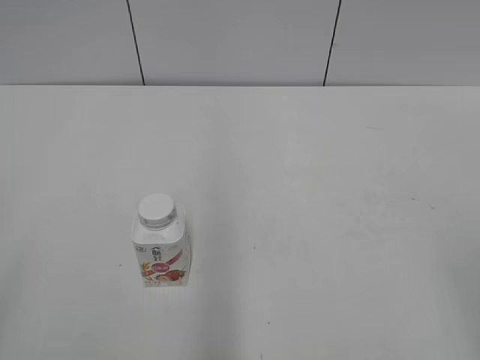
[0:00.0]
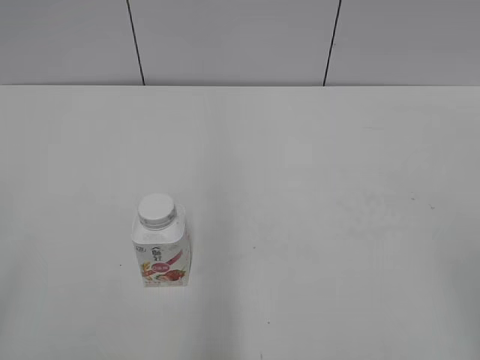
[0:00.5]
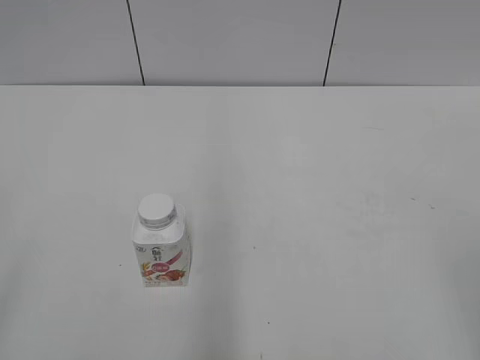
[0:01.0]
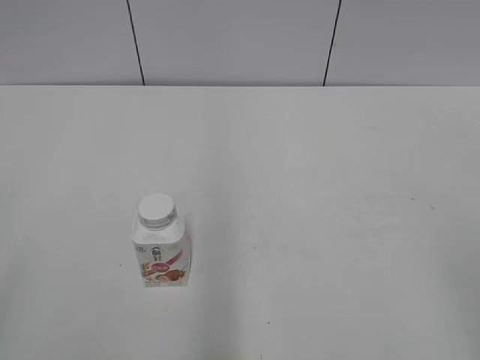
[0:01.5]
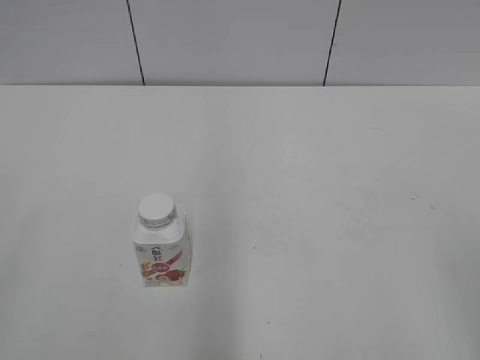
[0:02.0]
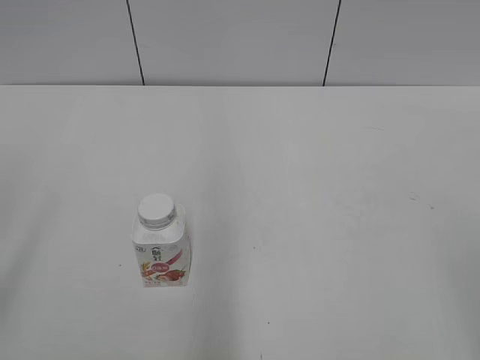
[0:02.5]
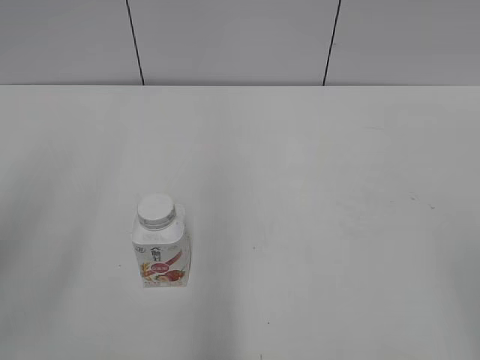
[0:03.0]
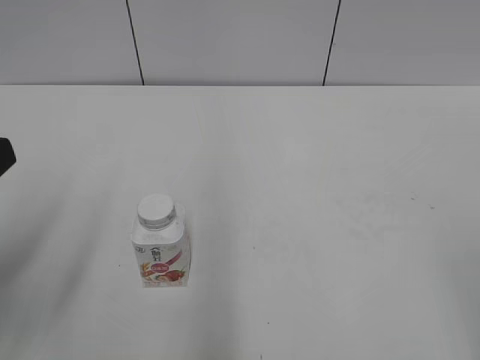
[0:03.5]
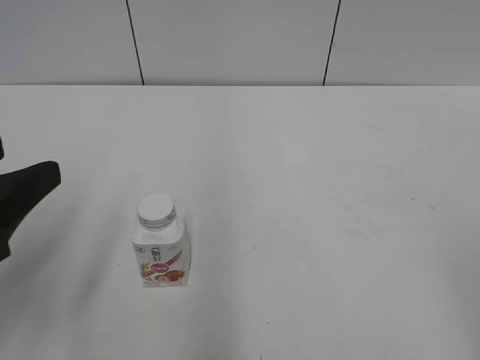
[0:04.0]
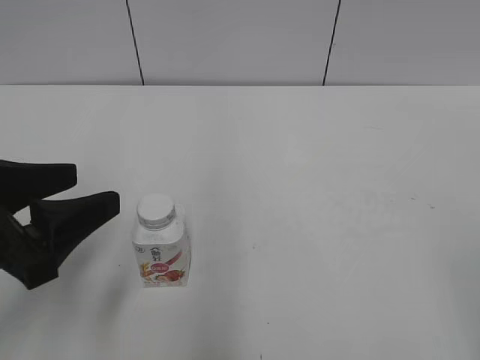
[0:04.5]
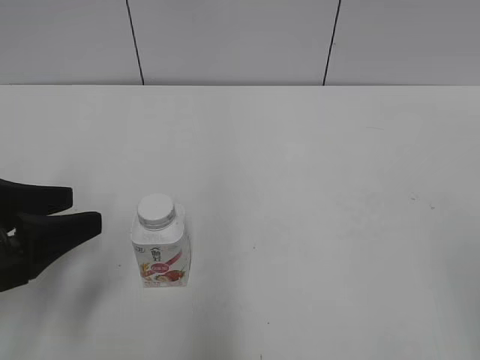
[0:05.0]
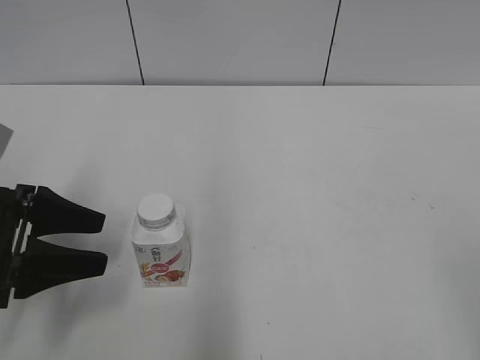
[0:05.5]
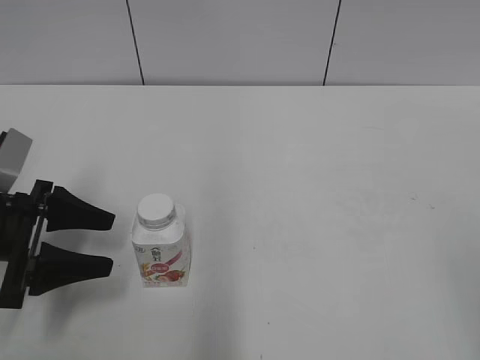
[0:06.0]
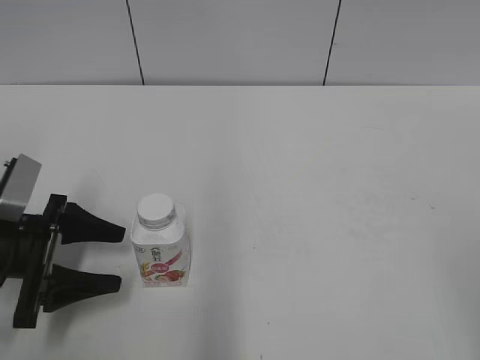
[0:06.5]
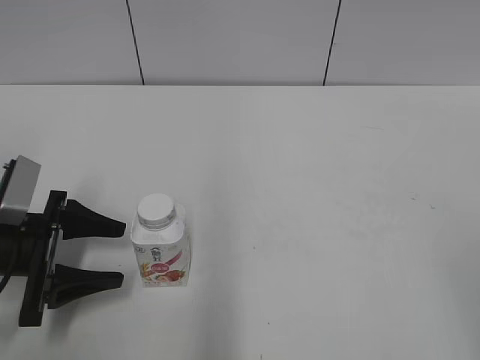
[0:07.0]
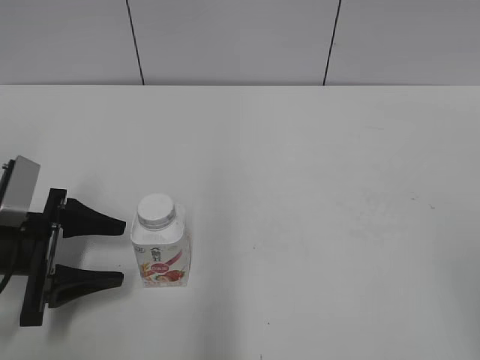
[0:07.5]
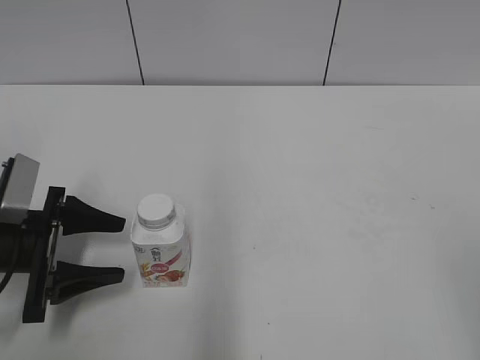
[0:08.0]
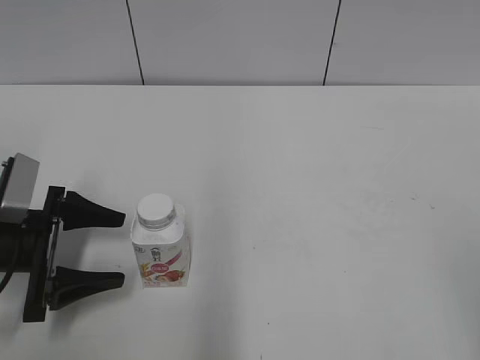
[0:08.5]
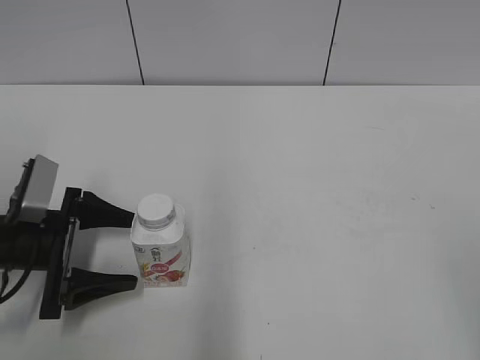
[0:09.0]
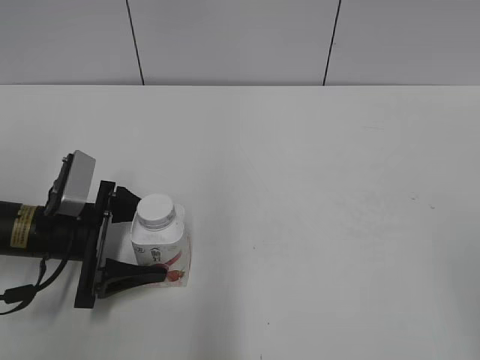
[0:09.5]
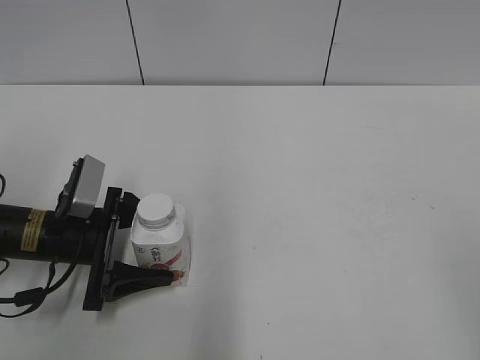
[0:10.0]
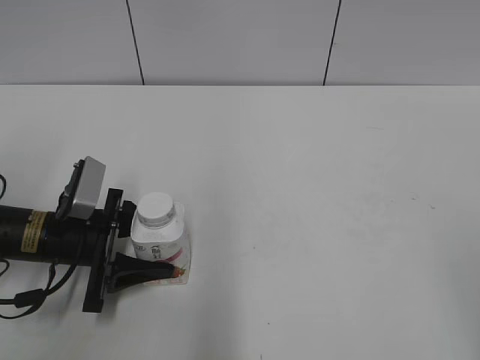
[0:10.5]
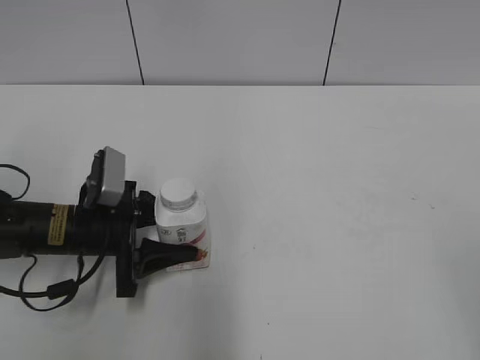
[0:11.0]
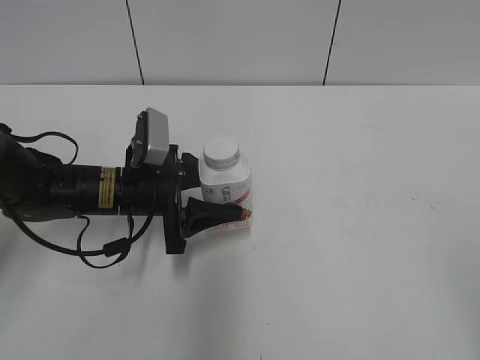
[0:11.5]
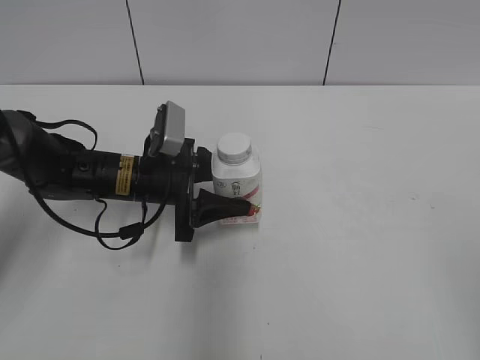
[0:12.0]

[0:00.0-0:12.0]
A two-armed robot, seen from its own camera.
Step, 0:00.0 to 0:10.0: Grab the Yili Changqing with the left hand.
0:02.0 to 0:04.0: The left gripper goes about 20 cm forward, downward and to the right.
0:04.0 to 0:06.0: The left gripper is displaced downward and forward by roughly 15 cm.
0:06.0 to 0:08.0: The grippers make only small movements.
0:08.0 to 0:10.0: The left gripper ends up approximately 5 cm from where it was, and opens up.
0:10.0 to 0:12.0: The left gripper moves to the right and forward, approximately 10 cm, and closes.

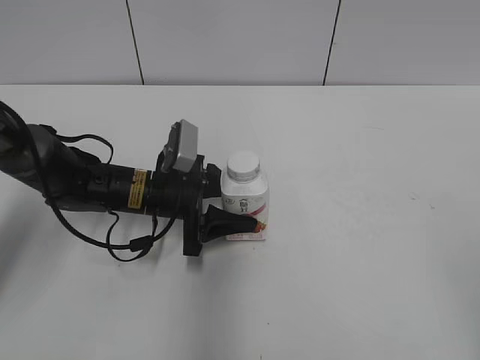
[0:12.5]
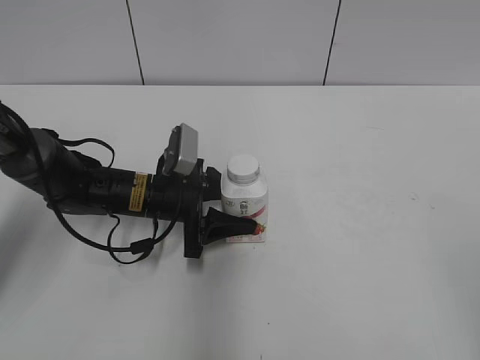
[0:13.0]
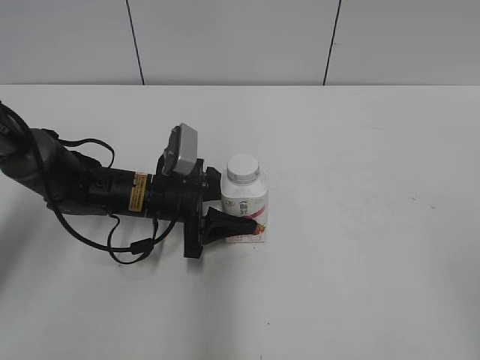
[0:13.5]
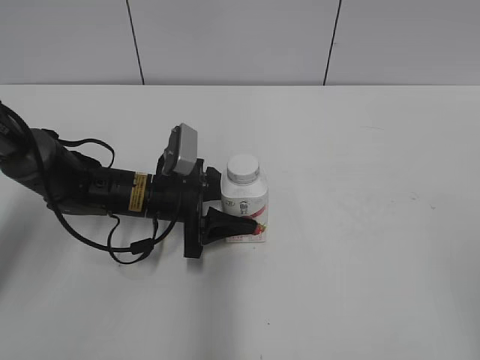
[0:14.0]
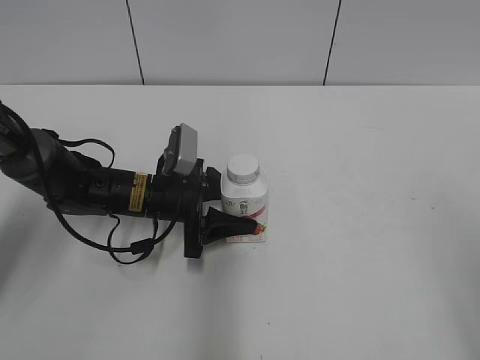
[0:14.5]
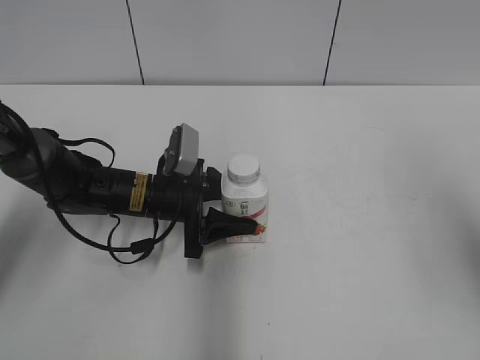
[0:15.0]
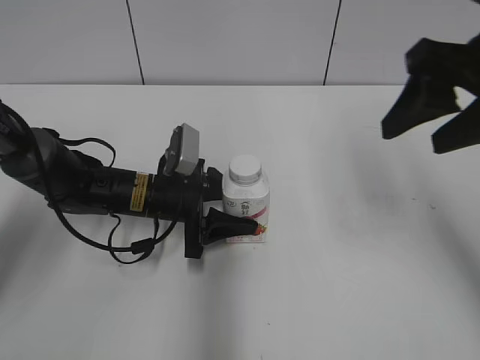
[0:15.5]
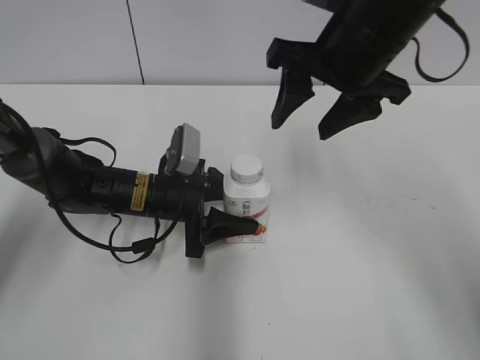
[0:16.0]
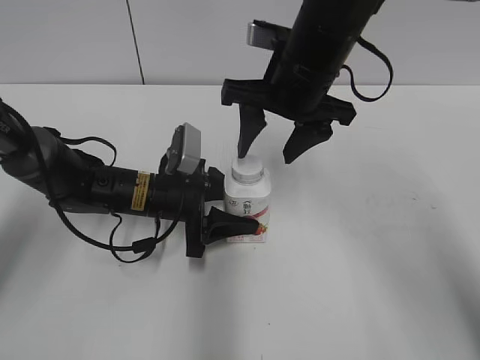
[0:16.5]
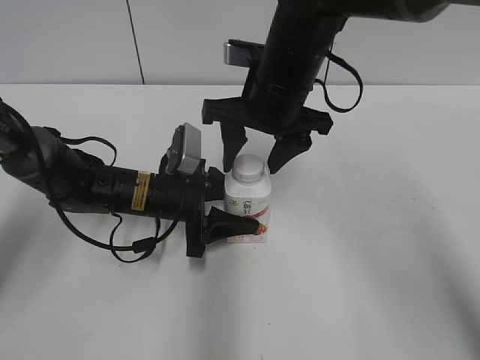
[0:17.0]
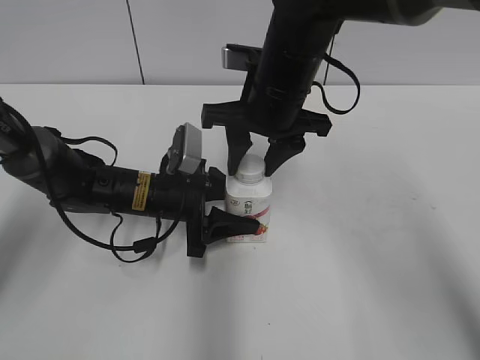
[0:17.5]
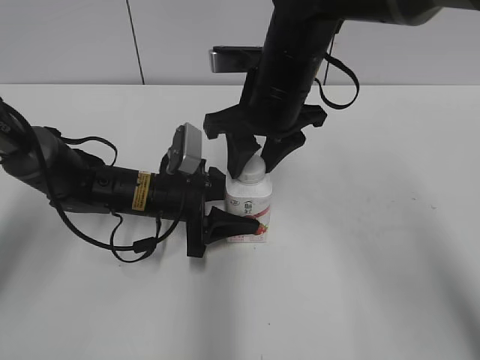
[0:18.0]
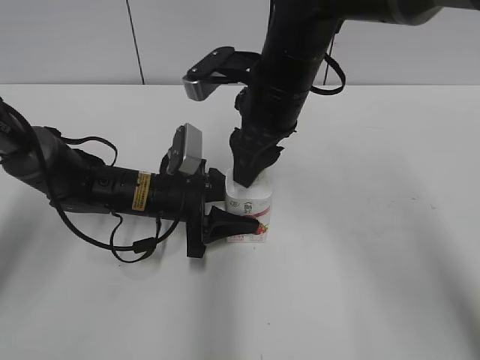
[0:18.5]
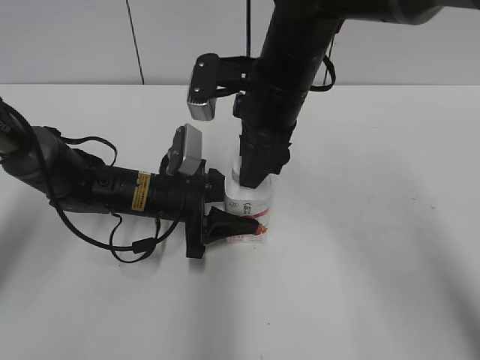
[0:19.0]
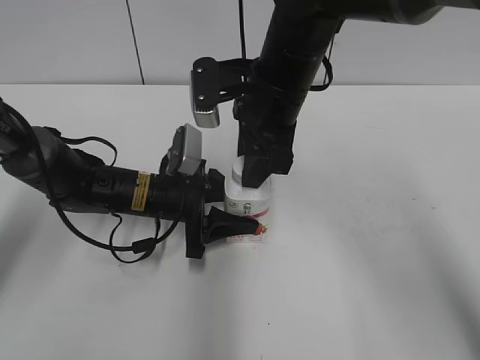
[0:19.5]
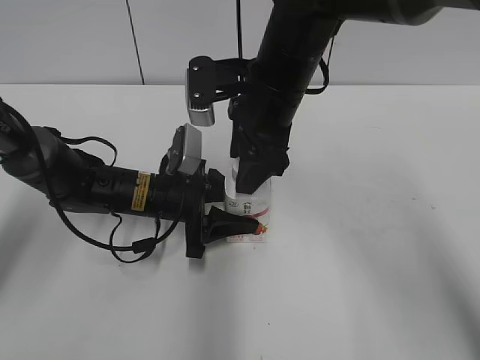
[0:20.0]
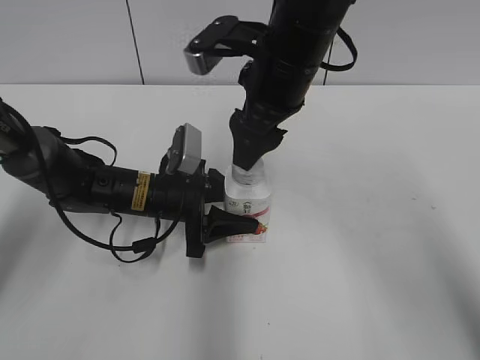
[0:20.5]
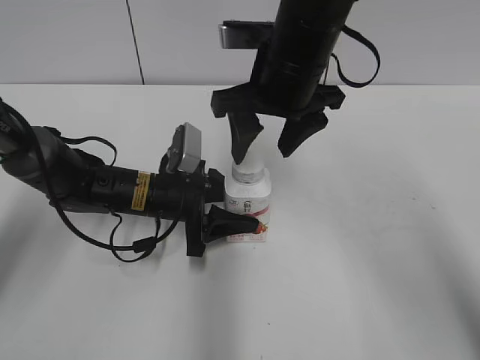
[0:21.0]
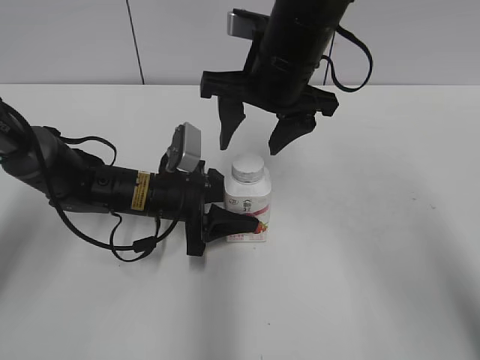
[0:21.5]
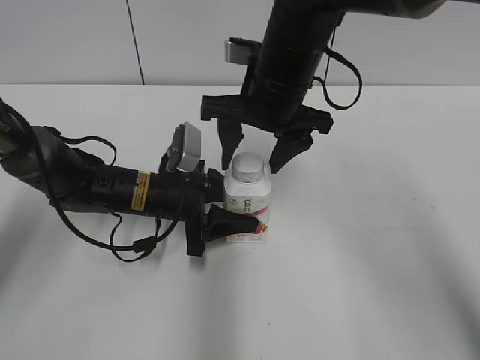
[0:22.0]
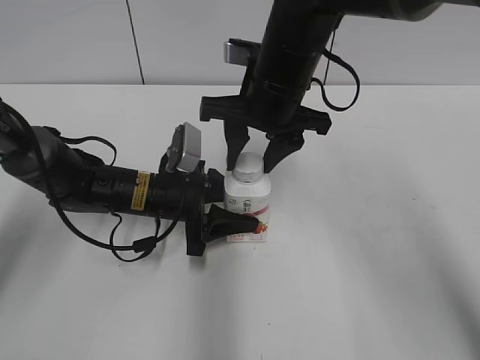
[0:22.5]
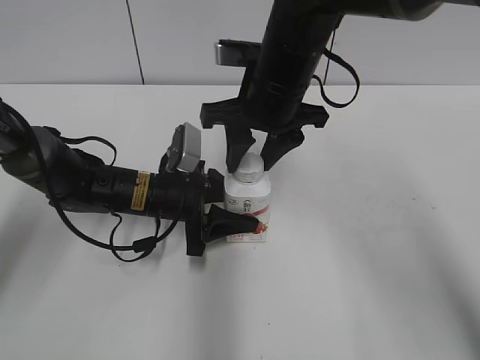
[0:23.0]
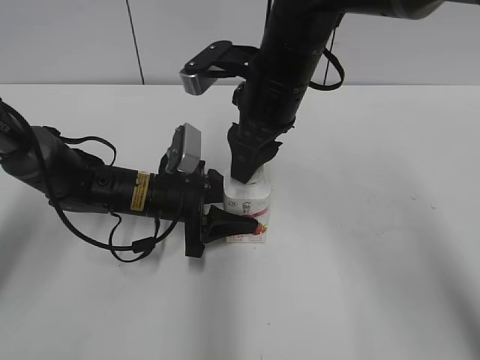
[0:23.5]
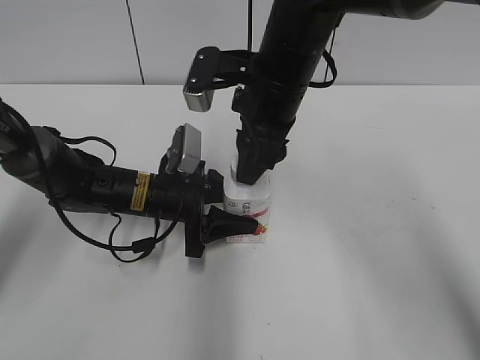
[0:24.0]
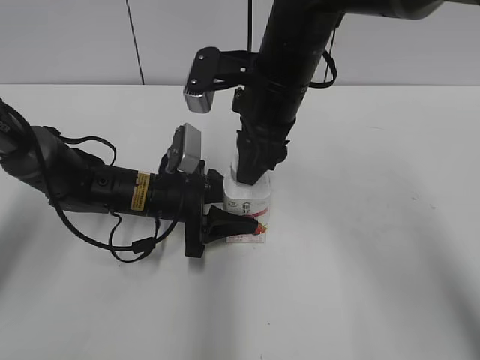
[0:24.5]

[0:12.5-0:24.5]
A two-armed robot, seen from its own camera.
0:12.5 to 0:14.5: The right gripper goes approximately 5 cm forward.
0:14.5 to 0:16.5: The right gripper is displaced forward and to the left by about 35 cm.
0:16.5 to 0:18.5: The right gripper closes its fingers.
0:18.5 to 0:20.5: The right gripper opens its fingers.
0:20.5 to 0:22.5: The right gripper closes up.

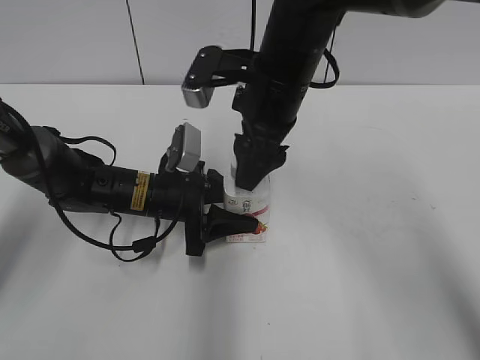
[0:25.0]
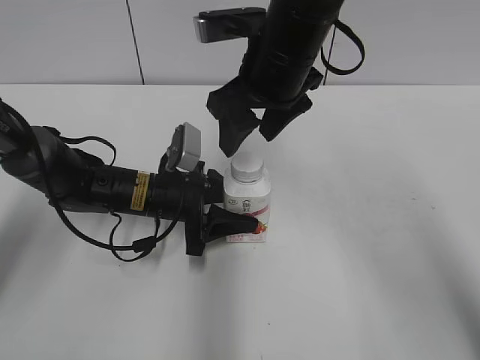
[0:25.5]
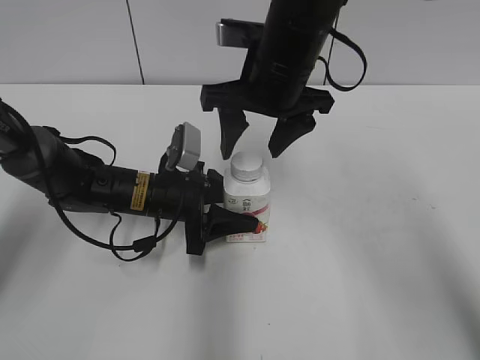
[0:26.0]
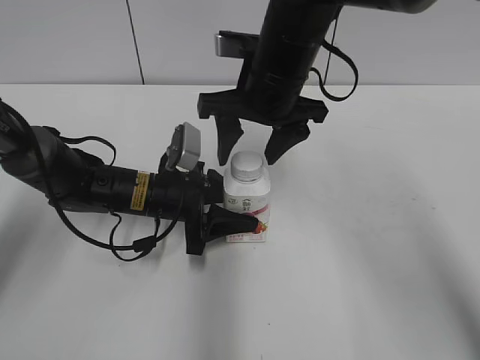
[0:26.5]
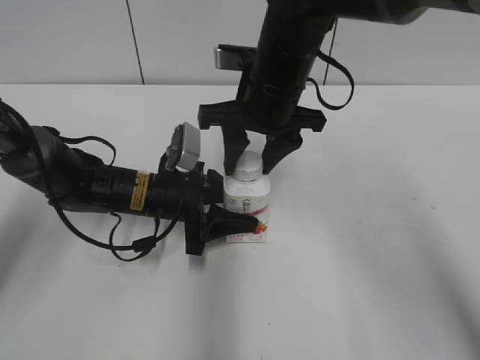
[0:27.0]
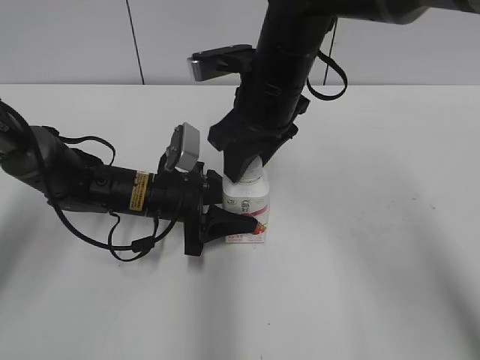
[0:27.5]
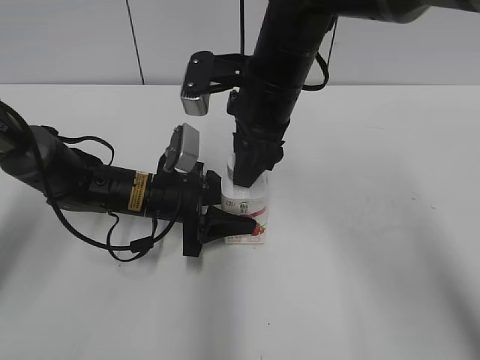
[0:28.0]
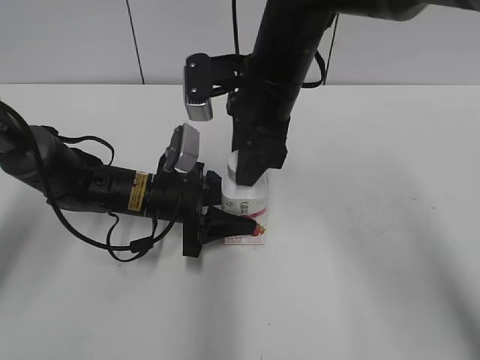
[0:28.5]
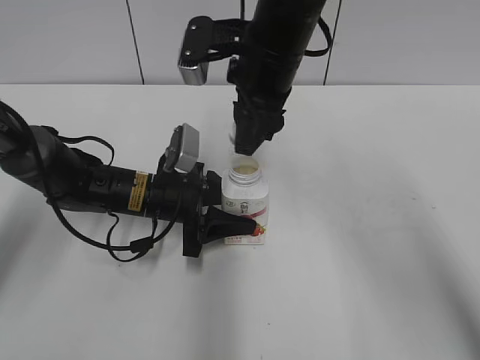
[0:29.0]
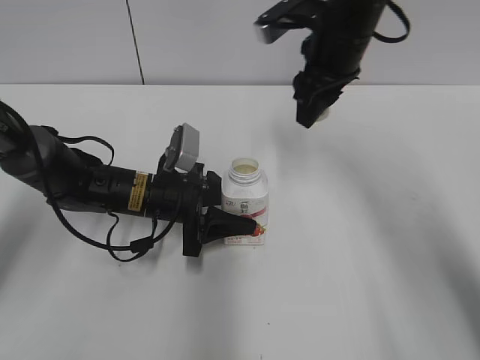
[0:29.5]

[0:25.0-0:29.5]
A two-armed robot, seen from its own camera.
0:25.0 to 0:27.0: The right gripper closes its fingers.
0:27.0 to 0:29.5: The right gripper shifts about 10 cm to the right and forward.
